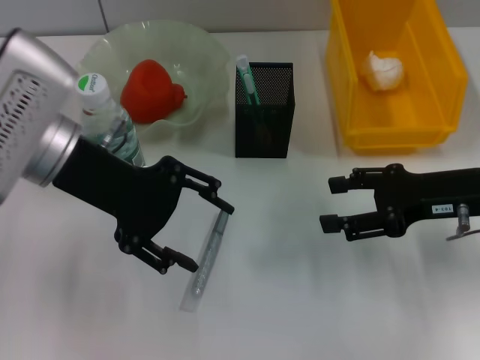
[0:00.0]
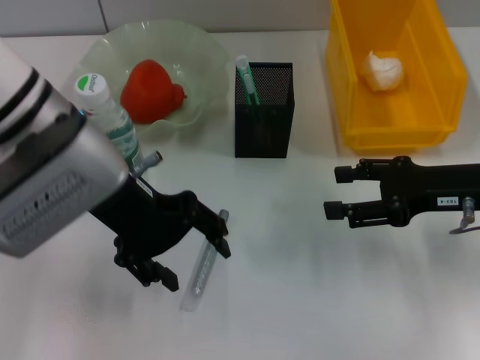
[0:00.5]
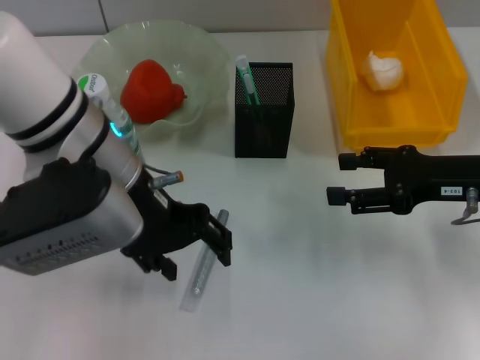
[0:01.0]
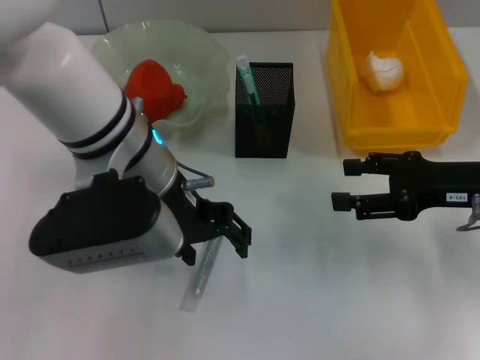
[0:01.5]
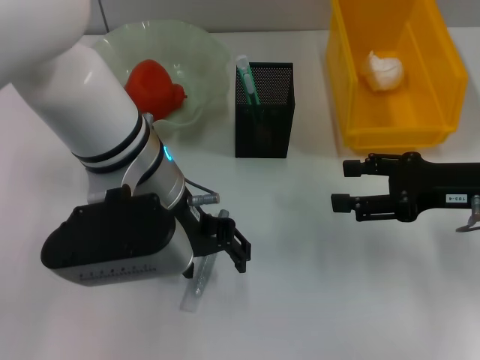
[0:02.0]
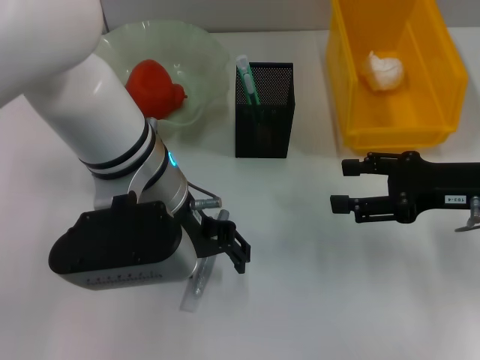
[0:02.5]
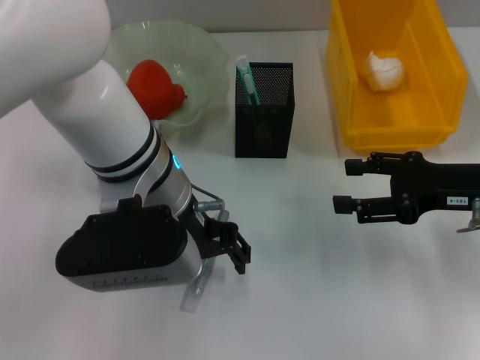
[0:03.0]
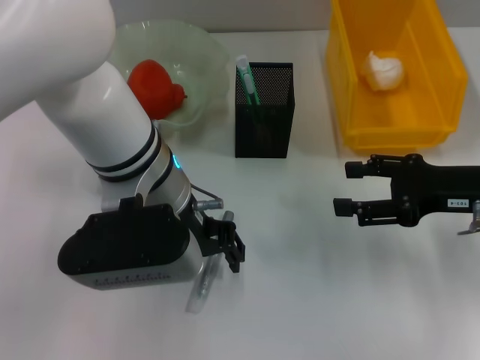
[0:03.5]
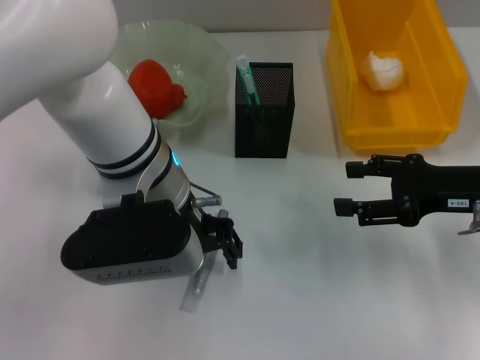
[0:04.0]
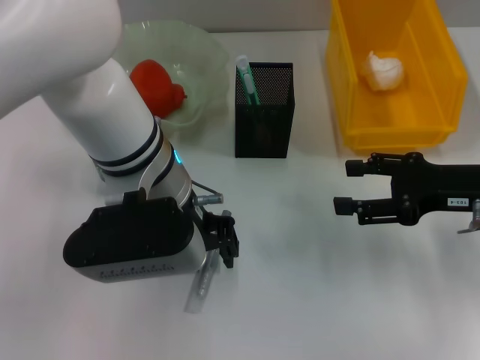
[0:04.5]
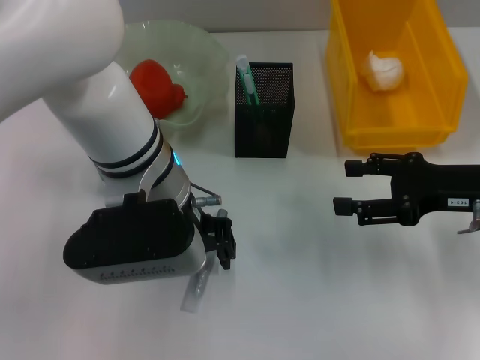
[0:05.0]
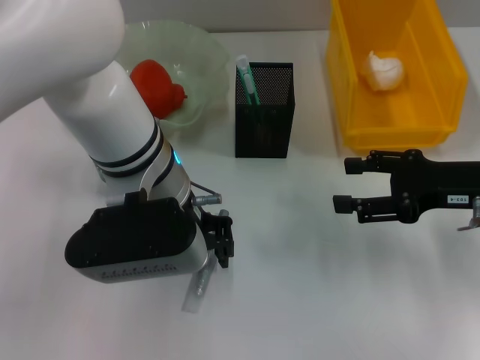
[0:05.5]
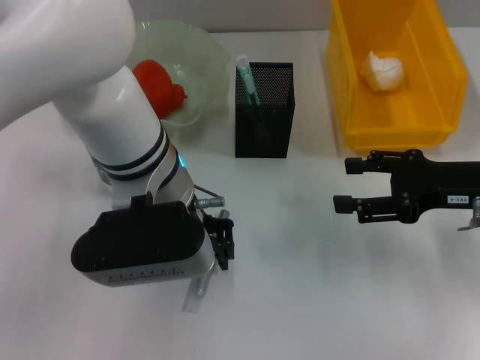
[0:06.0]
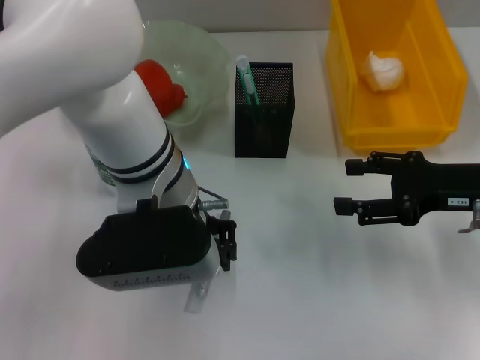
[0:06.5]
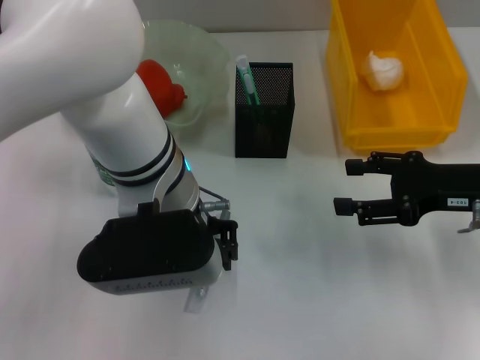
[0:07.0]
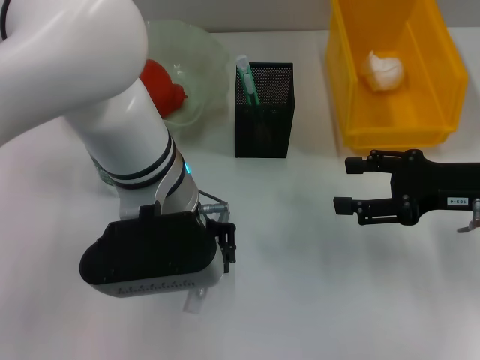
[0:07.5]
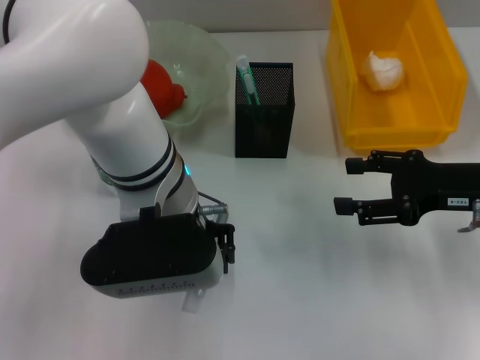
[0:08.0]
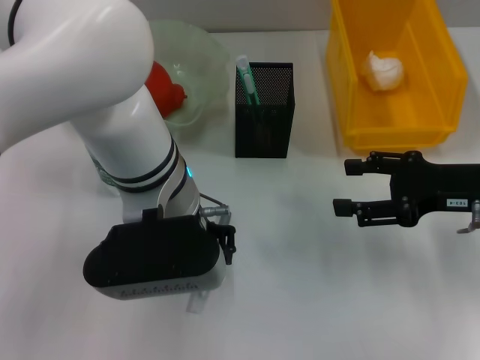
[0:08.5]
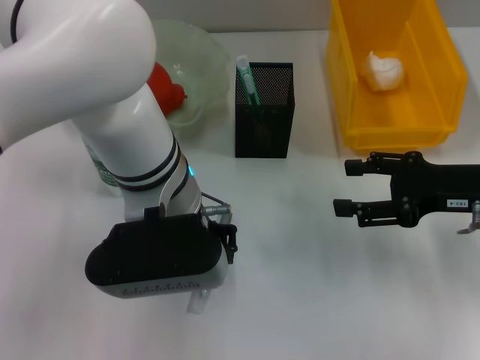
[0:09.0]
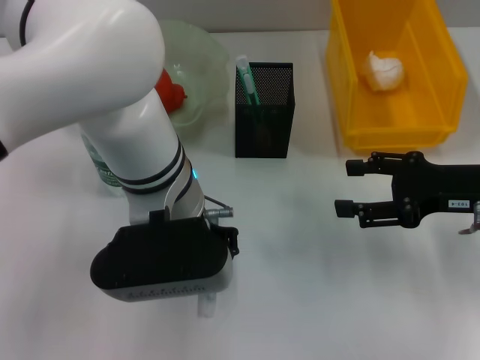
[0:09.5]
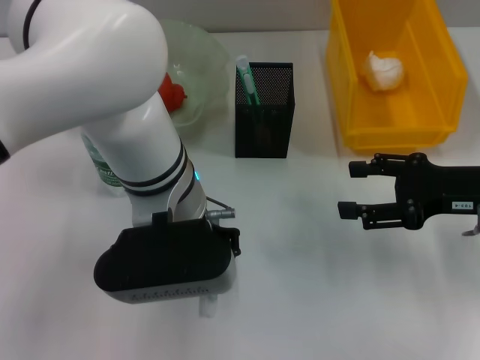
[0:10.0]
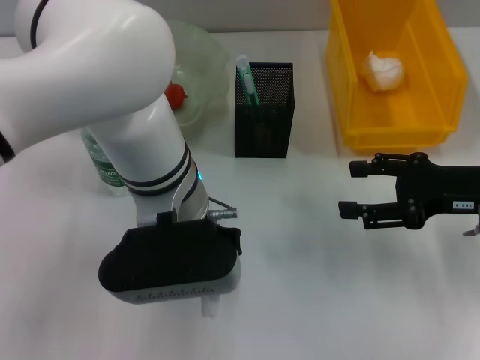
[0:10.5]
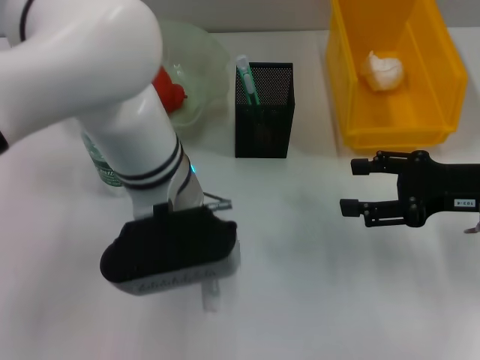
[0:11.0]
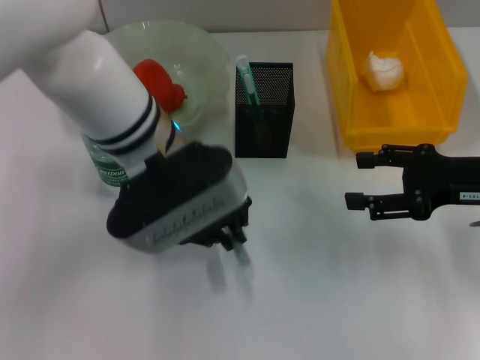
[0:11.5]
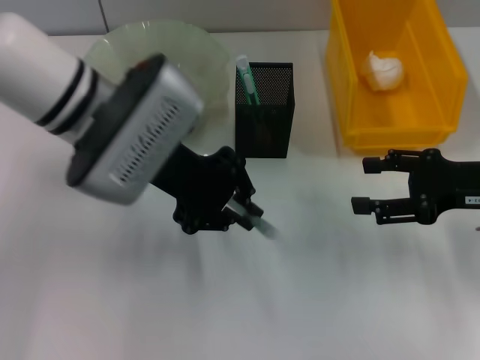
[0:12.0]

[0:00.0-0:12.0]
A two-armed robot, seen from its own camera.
Step, 0:00.0 to 0:10.0: Grab the gray glue with the left hand.
0:00.0 to 0:02.0: The left gripper heads to the right, covering some 10 cm.
0:02.0 to 0:04.0: The grippers make only small movements.
0:04.0 to 0:06.0: Both grippers stay put.
0:06.0 to 0:08.0: Both grippers stay put.
0:08.0 to 0:10.0: Both grippers stay about where they are.
0:10.0 to 0:12.0: The left gripper heads to the left, covering some 5 cm.

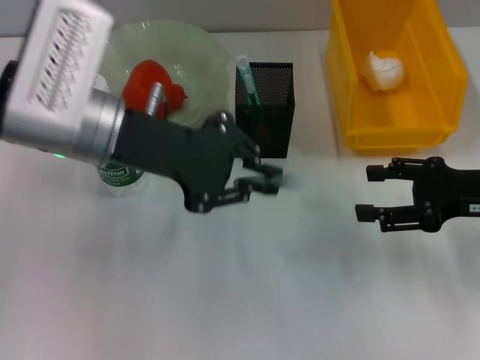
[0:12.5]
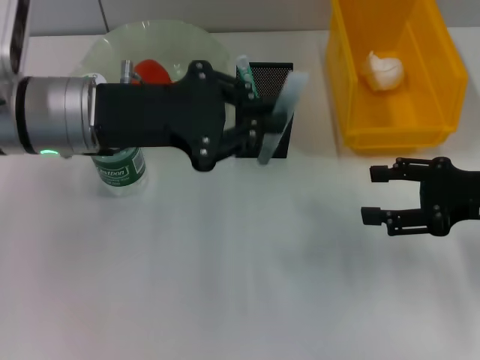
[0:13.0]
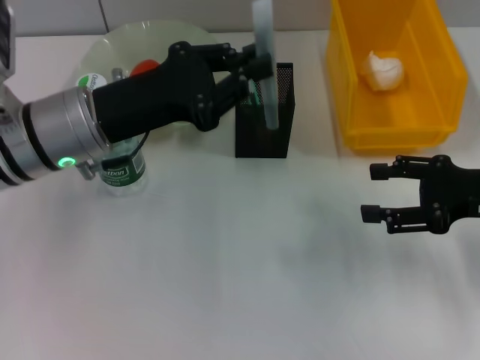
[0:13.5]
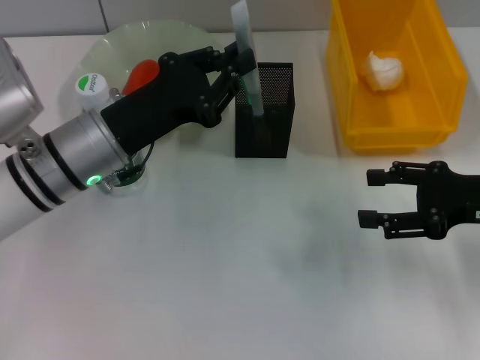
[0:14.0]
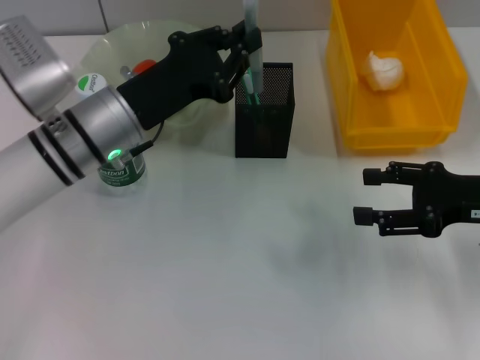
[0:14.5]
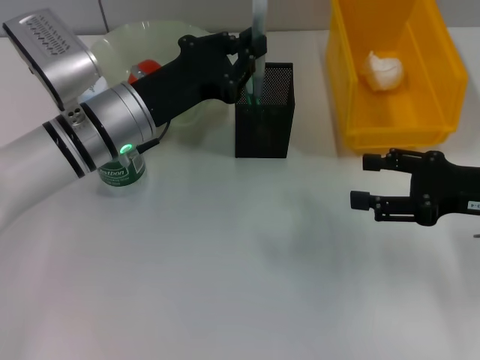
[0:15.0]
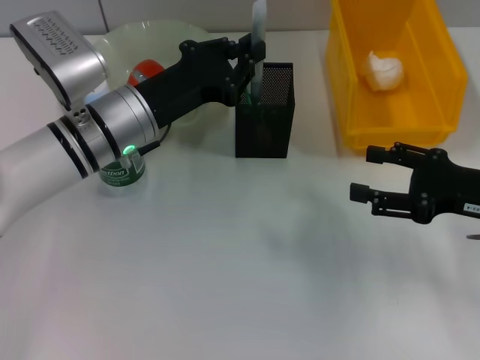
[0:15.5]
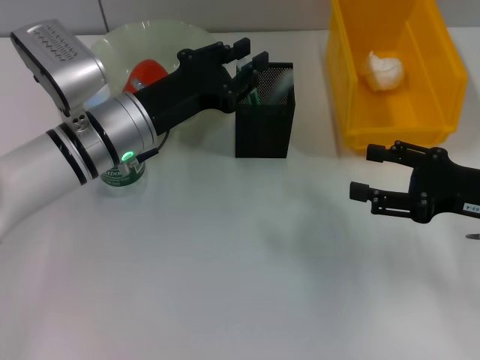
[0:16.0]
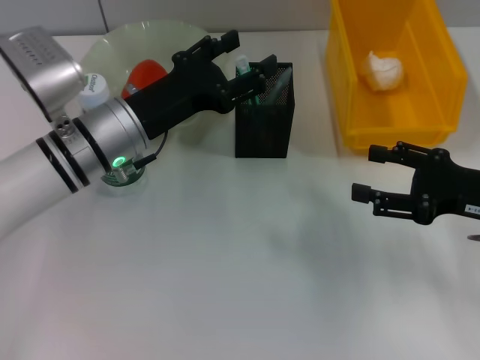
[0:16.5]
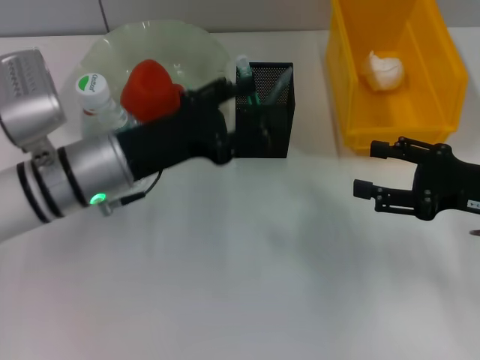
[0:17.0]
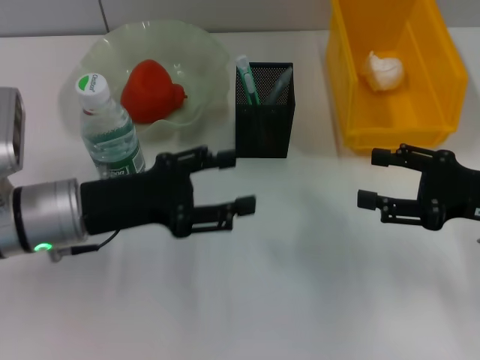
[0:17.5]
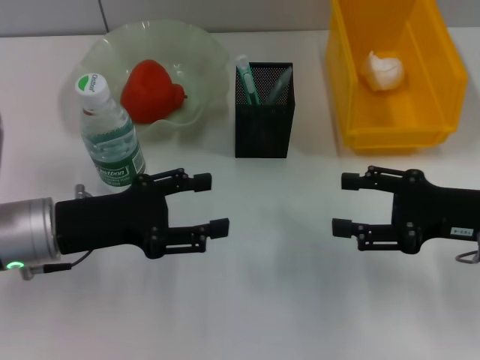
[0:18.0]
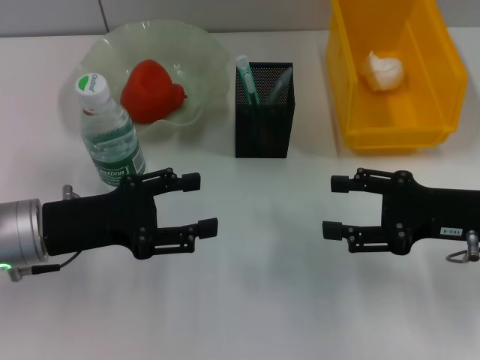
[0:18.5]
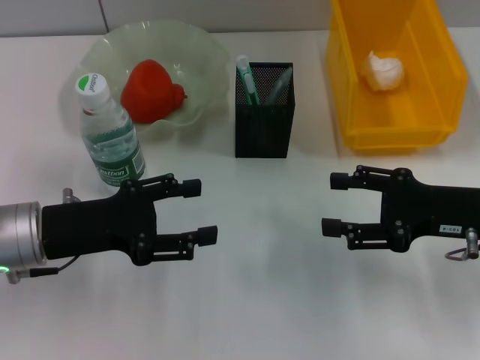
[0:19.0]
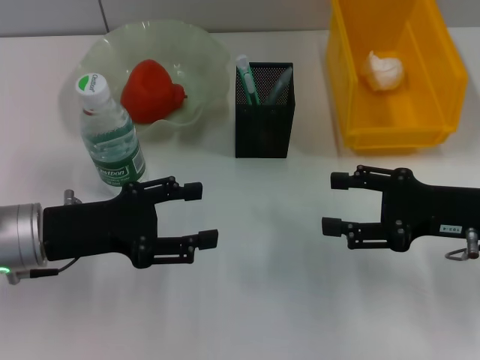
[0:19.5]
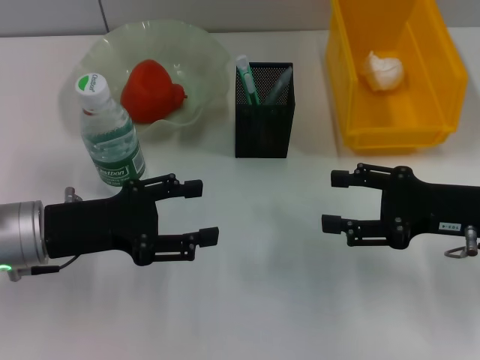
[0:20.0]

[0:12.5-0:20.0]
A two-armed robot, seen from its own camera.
Step, 0:12.5 to 0:16.0: Place the gray glue into the pen holder with the left hand.
0:12.5 to 0:14.5: The left gripper travels downward by approximately 10 cm.
0:14.5 to 0:16.5: The left gripper opens its fingers.
0:16.5 to 0:18.0: The left gripper moves to the left and backward, some 10 cm.
0:18.0 to 0:20.0: Both grippers stay put.

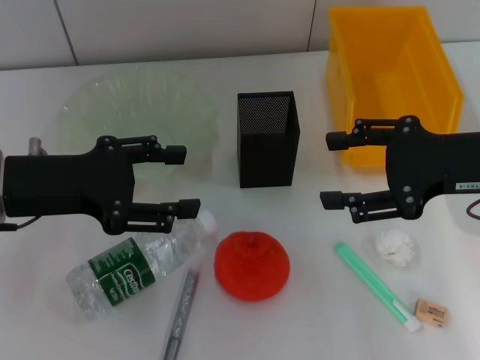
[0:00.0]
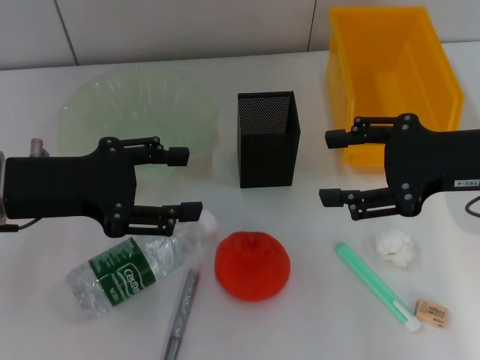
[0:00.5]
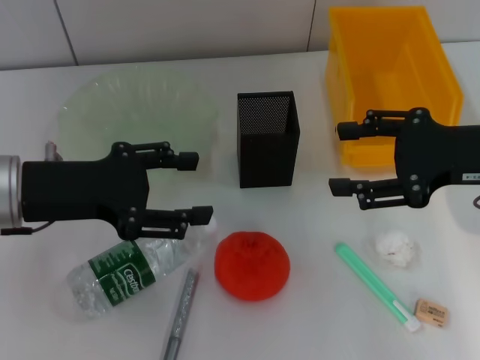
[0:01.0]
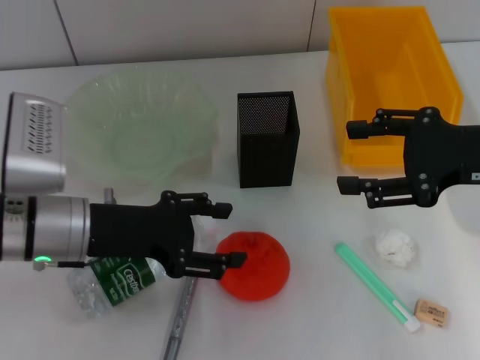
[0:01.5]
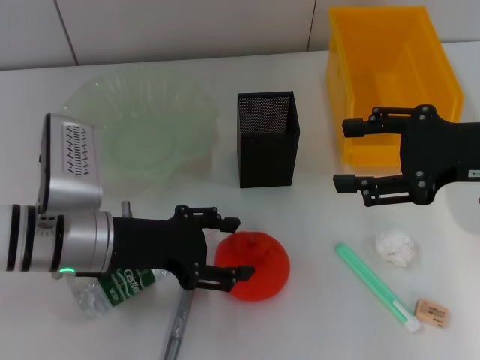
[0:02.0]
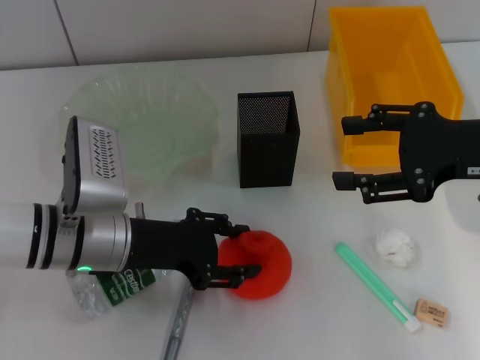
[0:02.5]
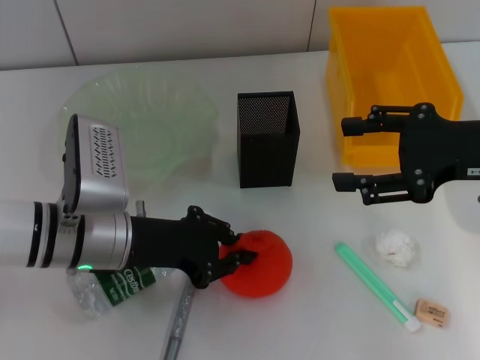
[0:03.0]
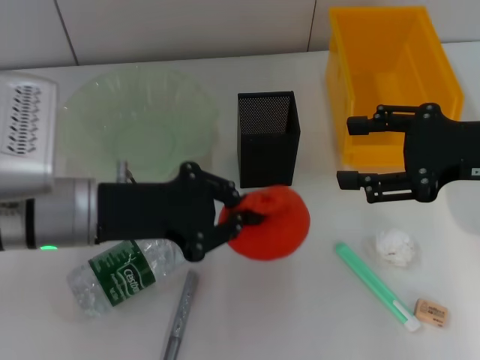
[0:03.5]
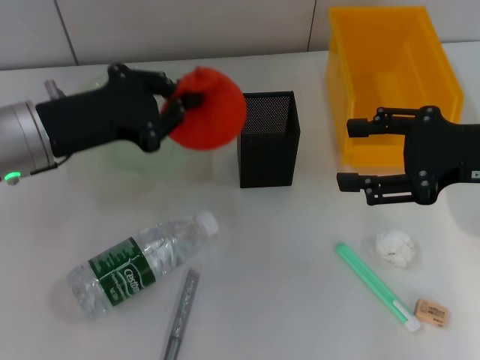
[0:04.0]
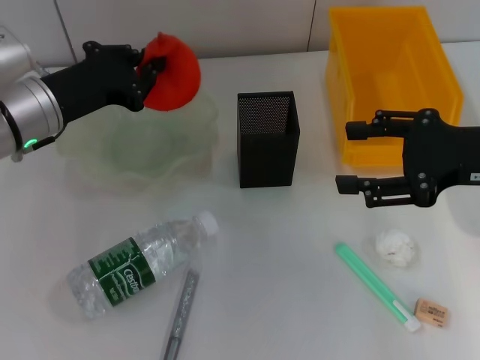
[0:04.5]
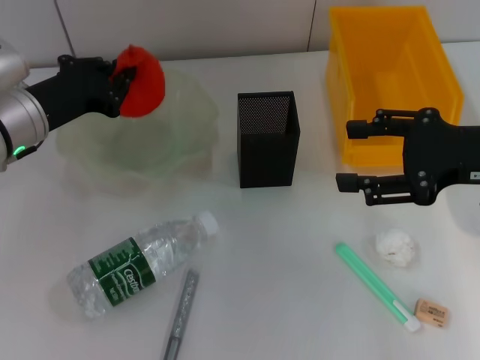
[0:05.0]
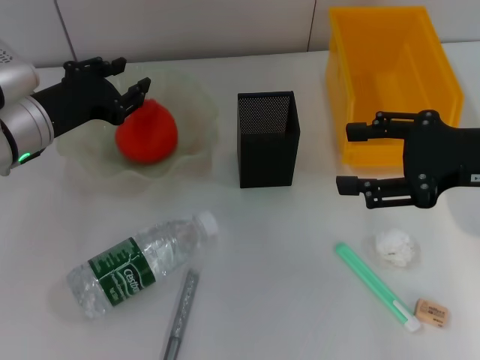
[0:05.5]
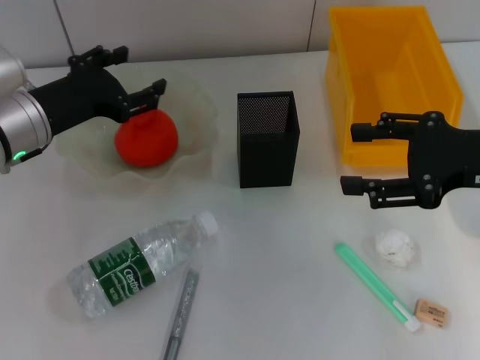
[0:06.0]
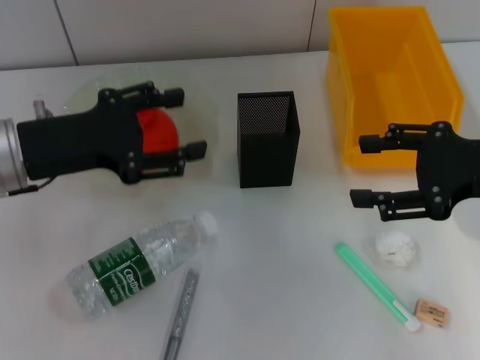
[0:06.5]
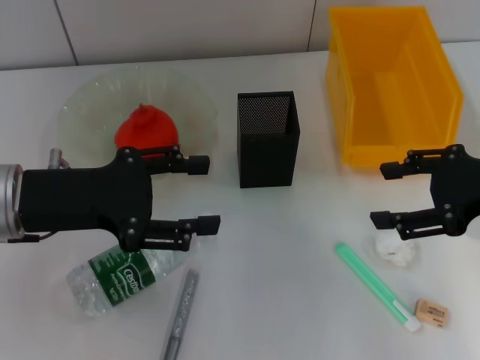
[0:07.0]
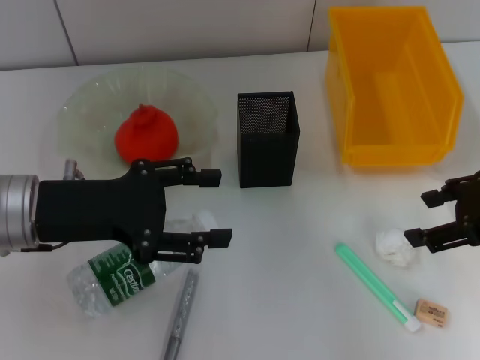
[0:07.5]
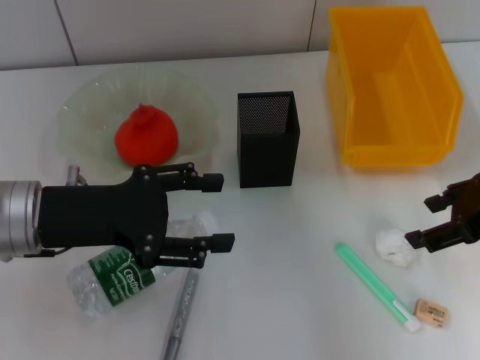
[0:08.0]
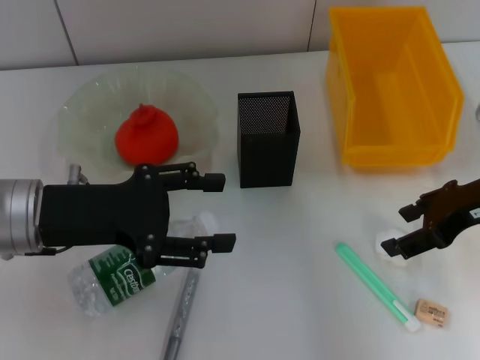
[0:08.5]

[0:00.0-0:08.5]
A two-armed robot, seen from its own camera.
Step, 0:00.0 to 0:03.0: Grab the orange with the left hand.
Step, 0:03.5 to 0:05.0: Place the orange into the fruit bowl with the left hand.
0:00.0 to 0:02.0: The left gripper shifts some 10 cm downward and to the right.
0:02.0 to 0:04.0: The left gripper goes roughly 5 cm upward, and closes.
0:04.0 to 0:06.5: The left gripper opens.
